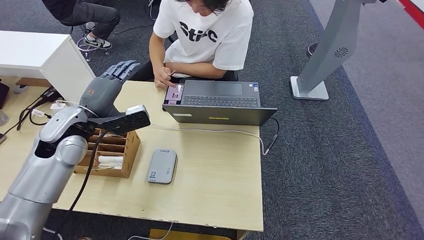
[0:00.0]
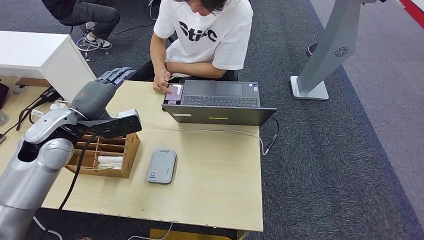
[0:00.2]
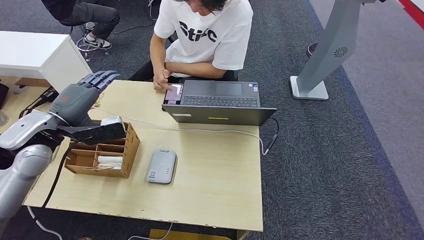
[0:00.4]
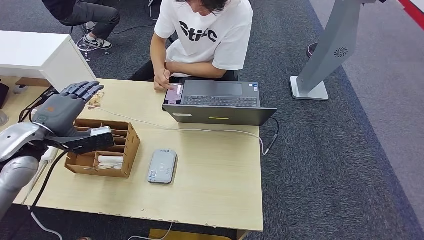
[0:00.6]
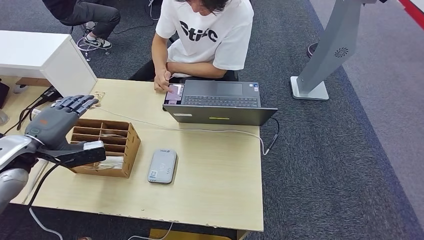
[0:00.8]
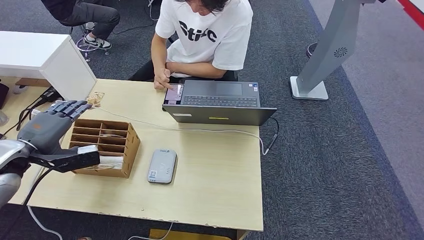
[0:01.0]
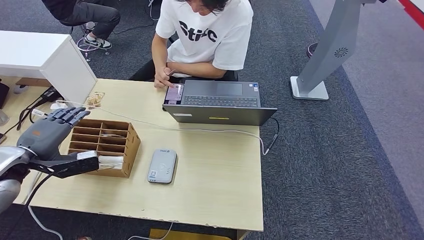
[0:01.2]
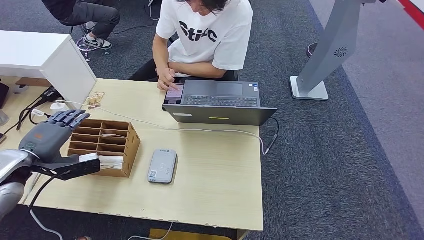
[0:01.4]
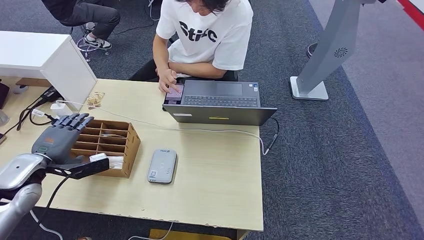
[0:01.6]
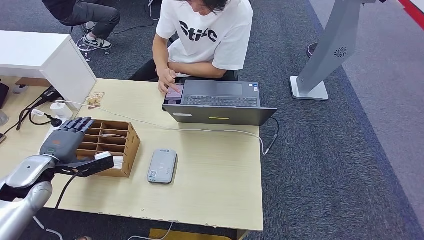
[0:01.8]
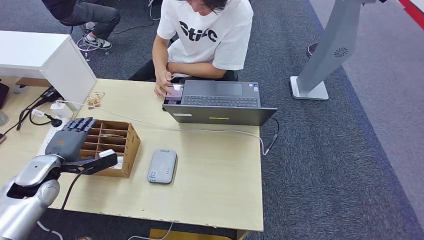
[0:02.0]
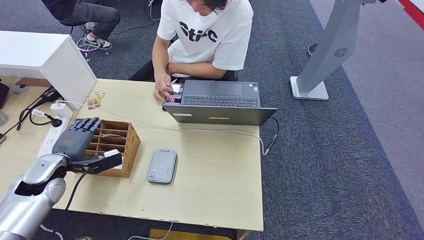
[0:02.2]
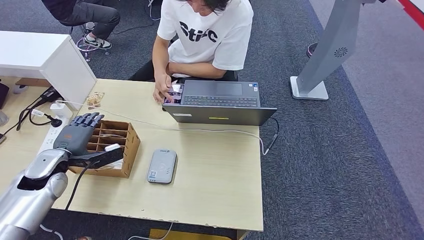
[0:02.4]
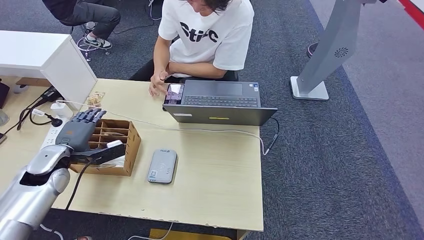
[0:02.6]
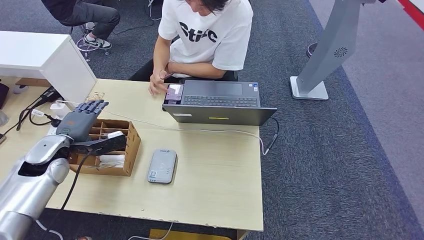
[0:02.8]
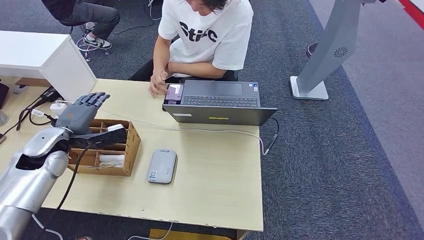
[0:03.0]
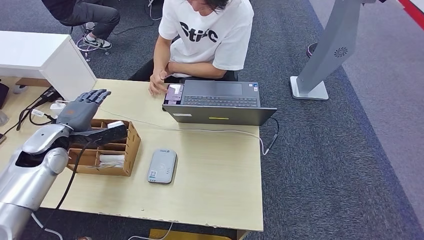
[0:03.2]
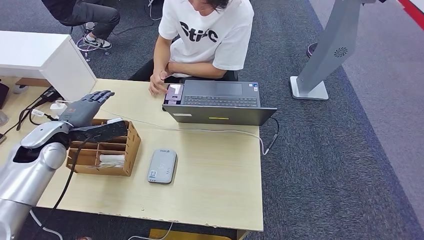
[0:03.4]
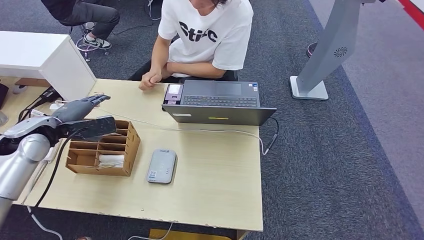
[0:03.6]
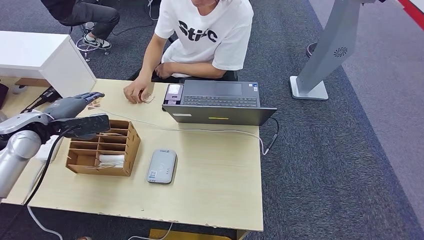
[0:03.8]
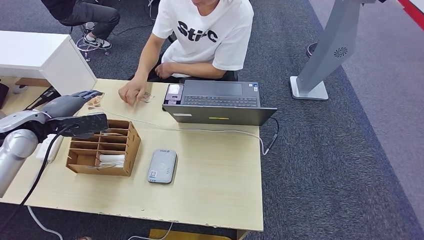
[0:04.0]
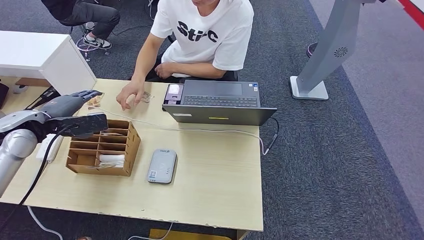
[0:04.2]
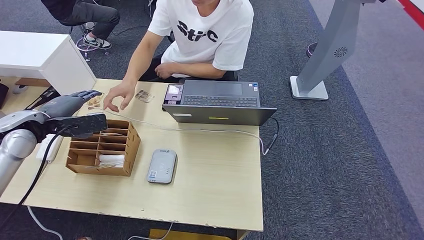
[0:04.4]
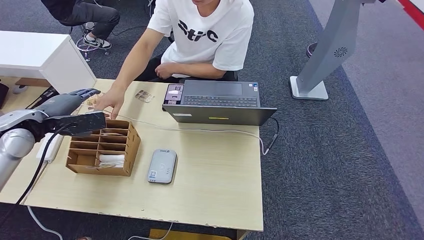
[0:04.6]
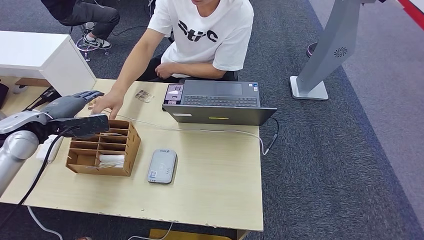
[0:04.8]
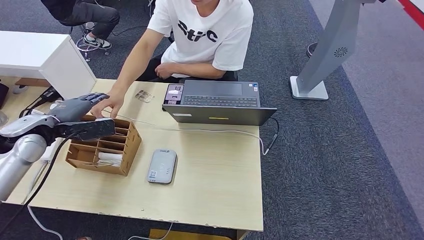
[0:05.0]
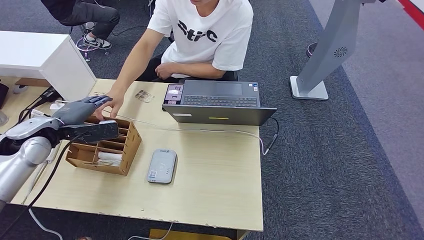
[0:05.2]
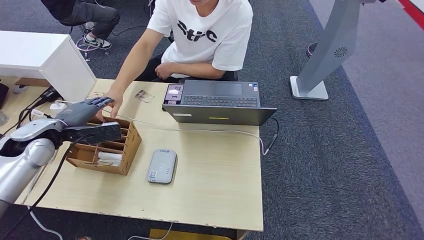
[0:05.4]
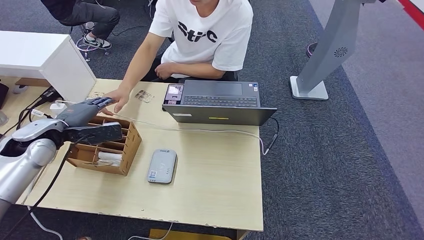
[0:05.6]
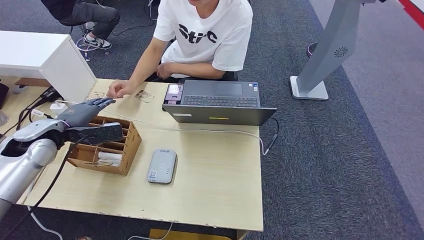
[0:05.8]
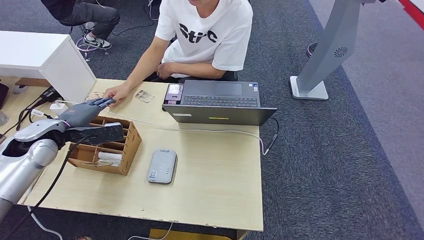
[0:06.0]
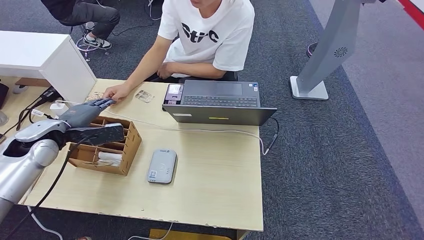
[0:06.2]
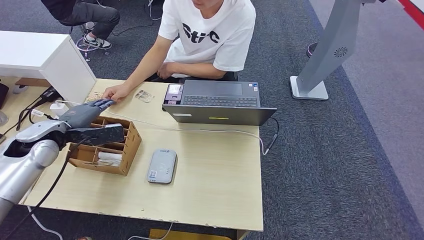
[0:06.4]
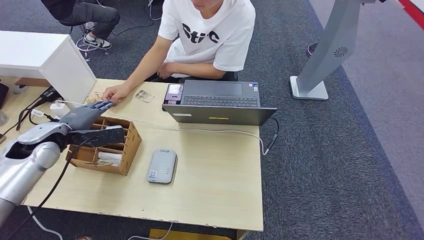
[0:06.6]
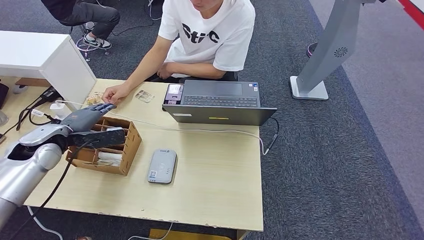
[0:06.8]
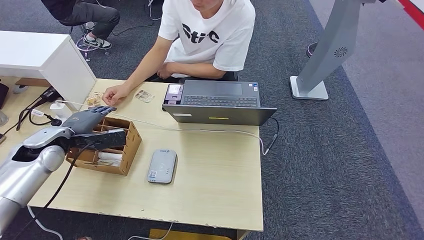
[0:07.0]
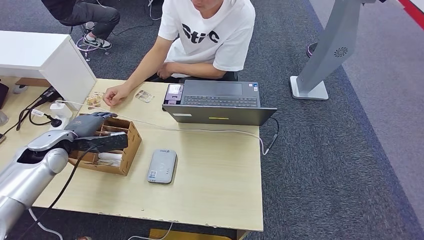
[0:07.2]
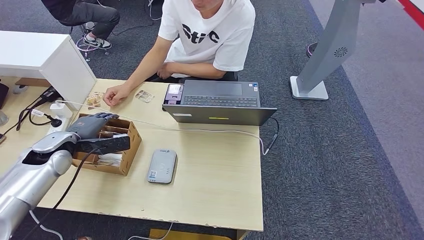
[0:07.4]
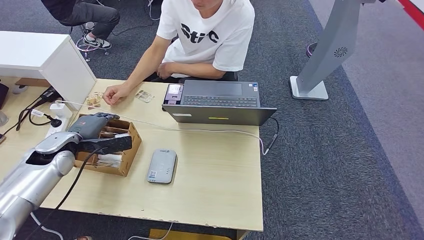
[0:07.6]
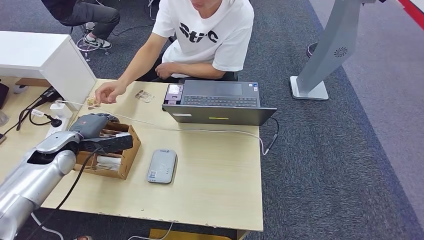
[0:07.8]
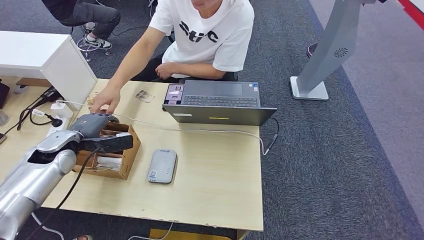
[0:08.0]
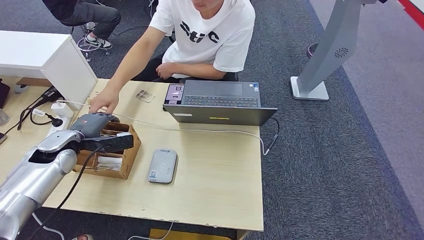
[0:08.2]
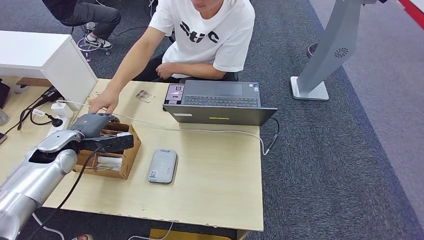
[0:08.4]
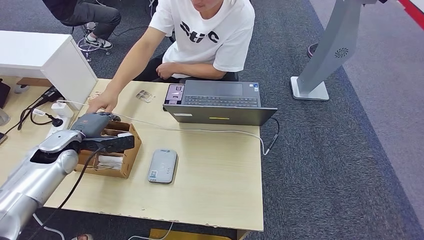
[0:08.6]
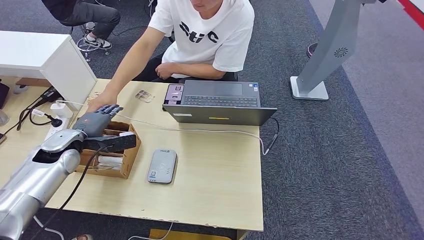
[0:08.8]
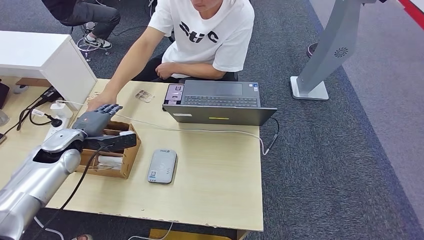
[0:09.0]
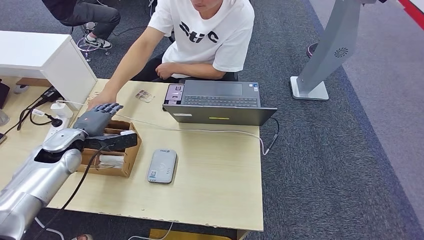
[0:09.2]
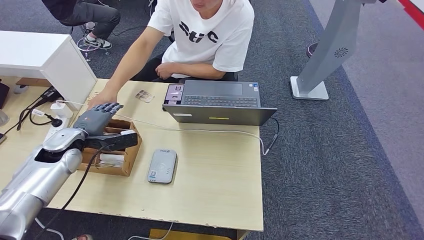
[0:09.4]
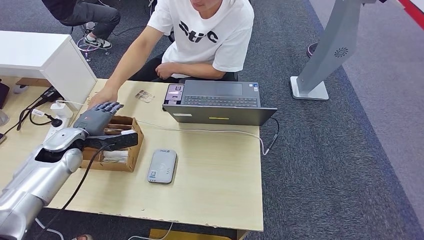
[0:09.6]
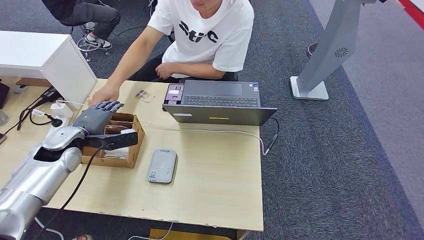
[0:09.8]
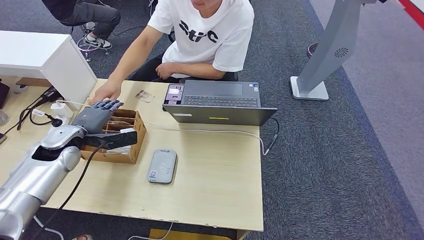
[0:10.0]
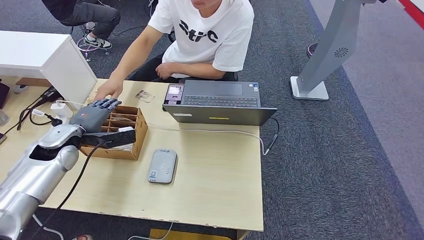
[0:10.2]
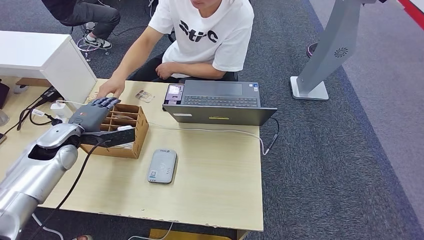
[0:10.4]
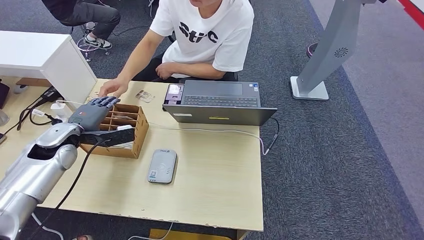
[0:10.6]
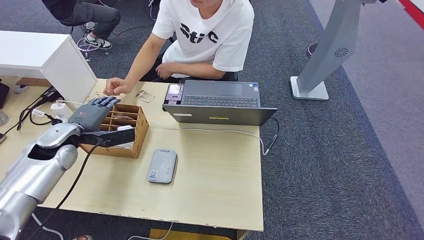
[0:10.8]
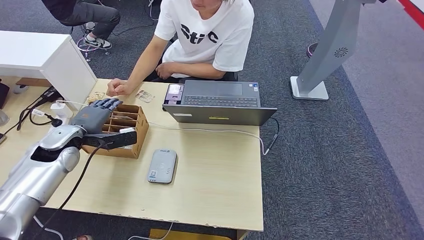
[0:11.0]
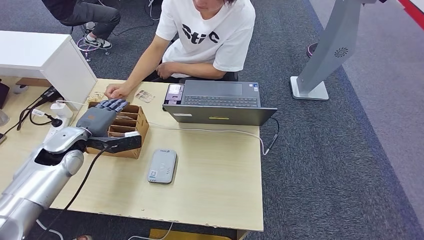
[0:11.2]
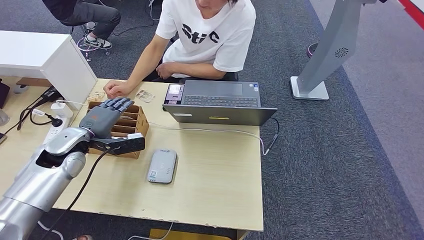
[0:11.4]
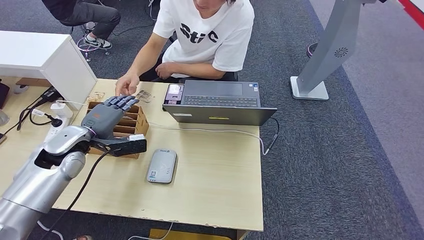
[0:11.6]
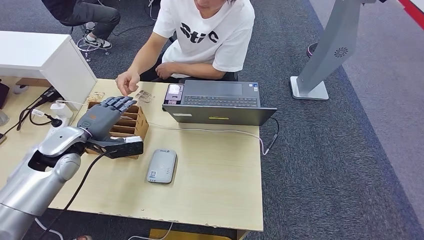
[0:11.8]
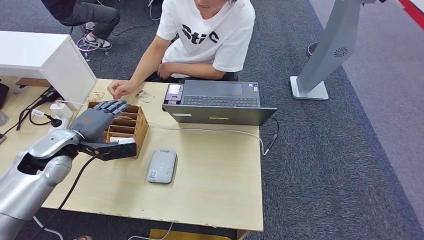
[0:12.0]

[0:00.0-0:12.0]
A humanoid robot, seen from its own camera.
0.0 to 1.6 s: The left hand shifts roughly 15 cm to the left and downward.
1.6 to 3.0 s: The left hand travels forward by roughly 5 cm.
3.0 to 4.4 s: The left hand shifts roughly 5 cm upward.
4.4 to 6.0 s: The hands make only small movements.
6.0 to 7.6 s: The left hand shifts some 5 cm downward.
7.6 to 10.4 s: The hands stay close to where they were, moving slightly.
10.4 to 12.0 s: There are only small adjustments of the hands.

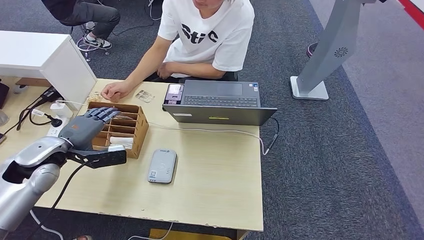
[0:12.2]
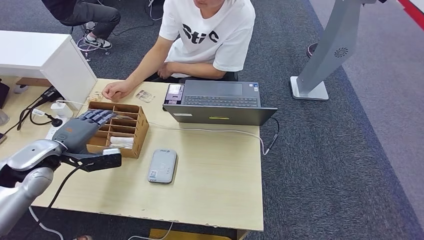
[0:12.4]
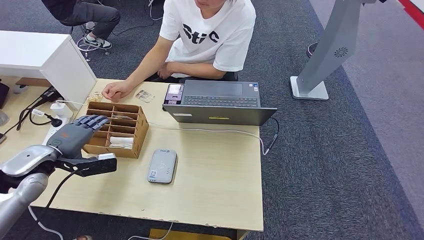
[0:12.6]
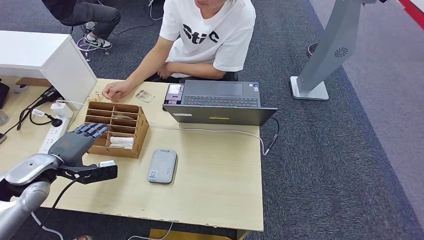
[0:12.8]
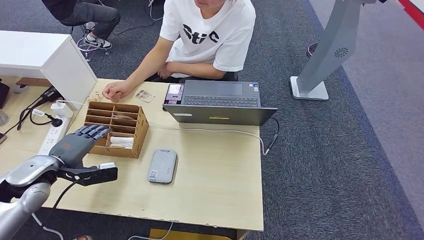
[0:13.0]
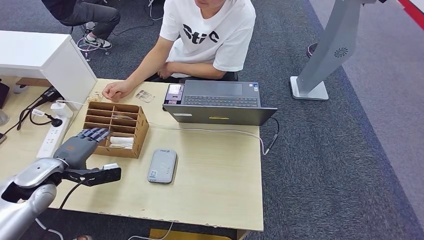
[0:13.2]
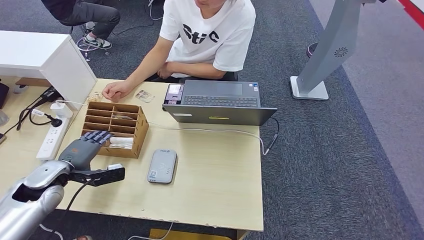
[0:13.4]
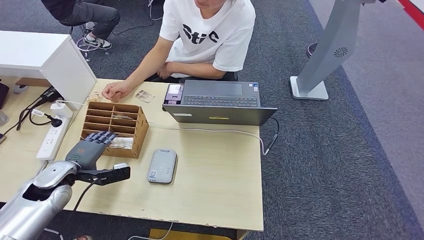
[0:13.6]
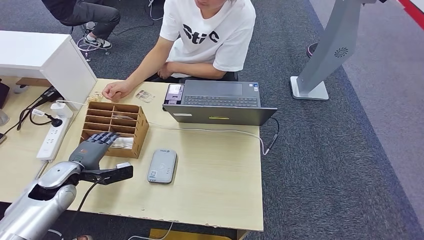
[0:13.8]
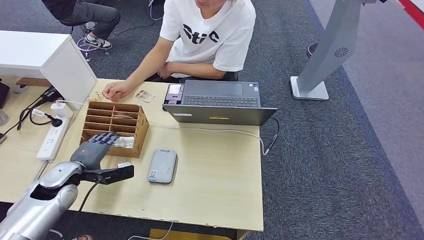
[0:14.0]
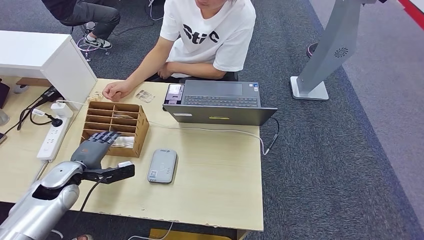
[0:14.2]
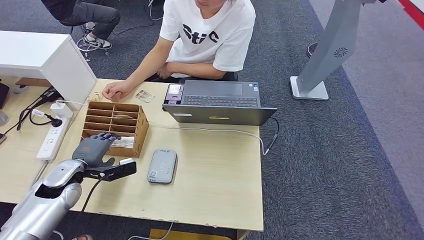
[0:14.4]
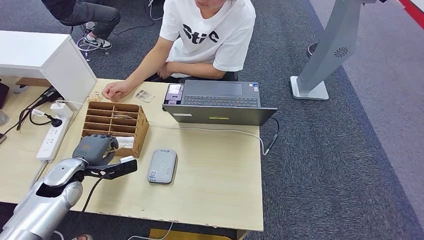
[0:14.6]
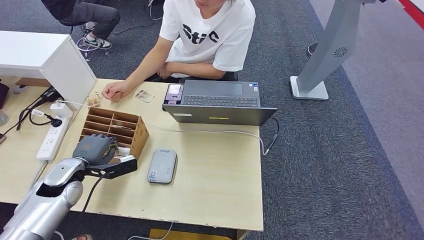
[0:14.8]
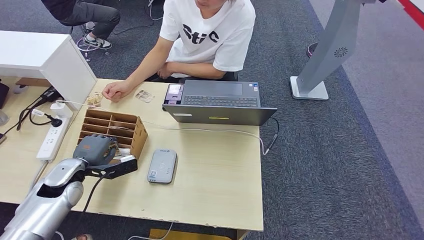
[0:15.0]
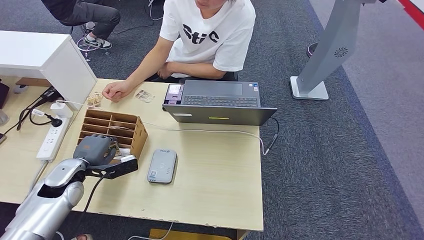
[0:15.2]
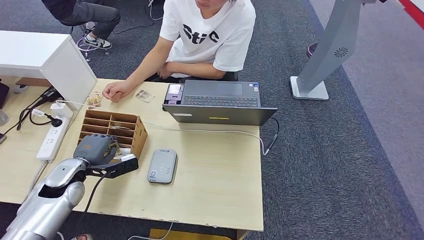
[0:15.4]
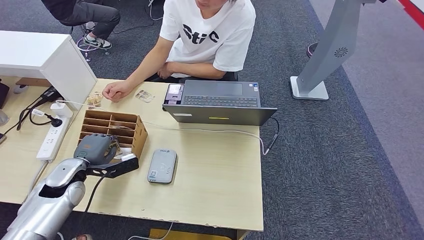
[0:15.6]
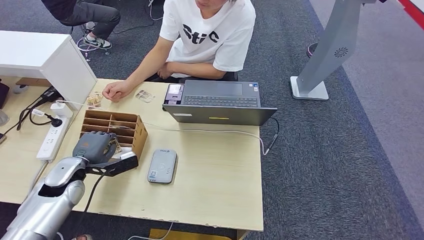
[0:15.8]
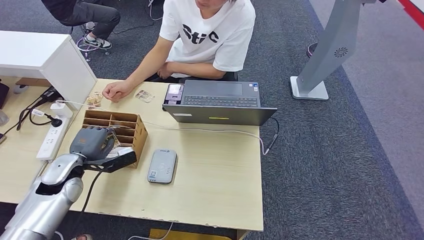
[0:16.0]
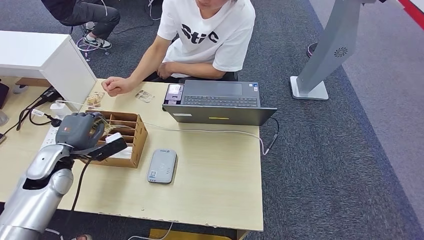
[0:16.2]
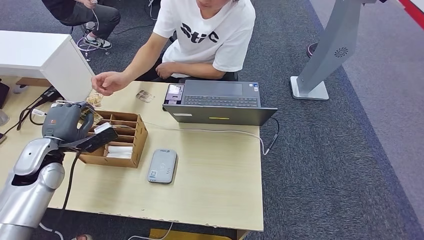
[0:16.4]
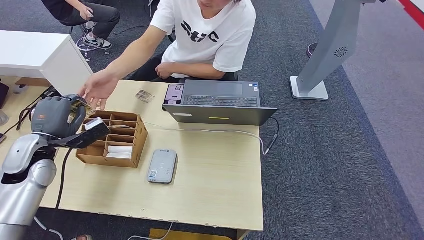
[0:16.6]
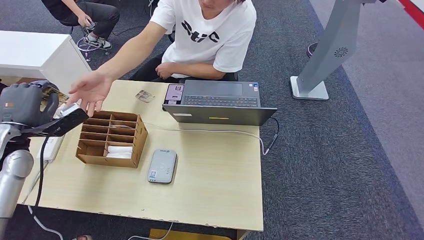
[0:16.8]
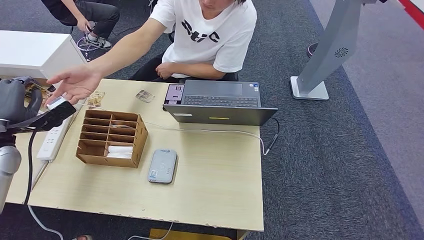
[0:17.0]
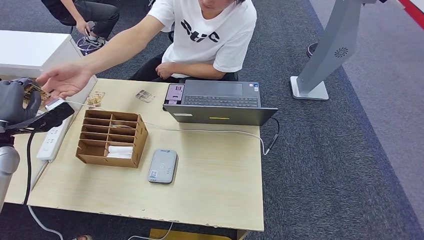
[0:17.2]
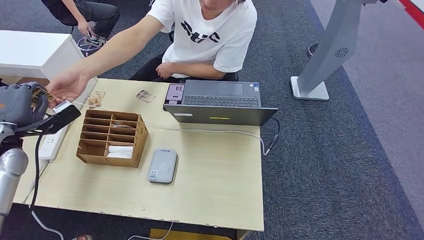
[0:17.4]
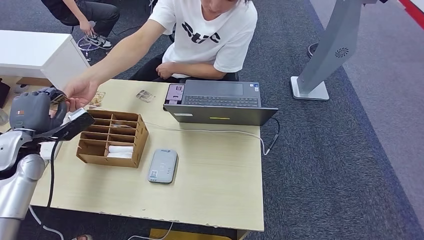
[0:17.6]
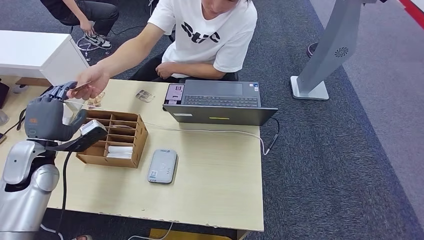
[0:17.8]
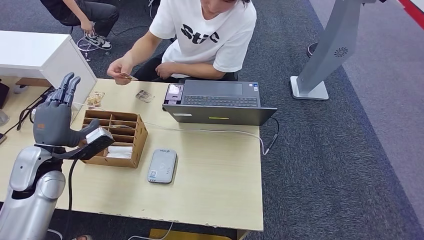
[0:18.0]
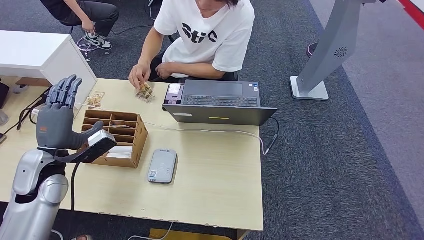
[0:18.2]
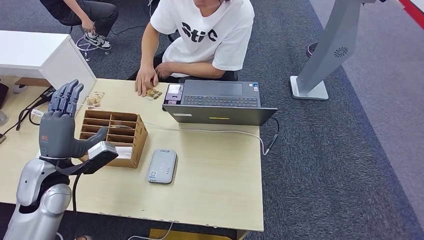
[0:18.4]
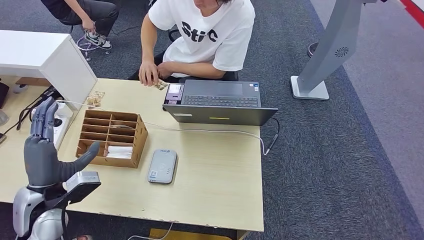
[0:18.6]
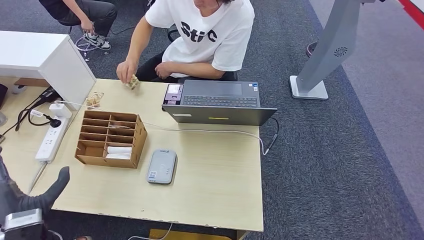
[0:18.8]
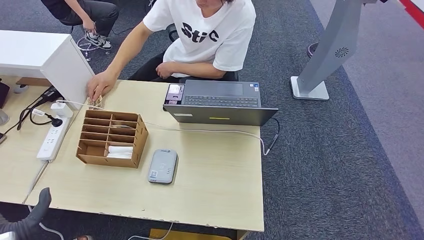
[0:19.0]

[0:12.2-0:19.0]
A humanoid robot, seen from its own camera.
Step, 12.2 to 15.6 s: Pick up the room key from the key card box.
Step, 16.0 to 19.0 s: Hand the room key to the person.
12.2 to 13.6 s: The left hand is displaced downward by some 10 cm.
13.6 to 15.0 s: The hands make only small movements.
15.0 to 16.2 s: The hands move only a little.
16.2 to 17.6 s: The left hand shifts about 5 cm to the left and upward.
17.6 to 19.0 s: The left hand heads backward and downward, covering roughly 25 cm.
